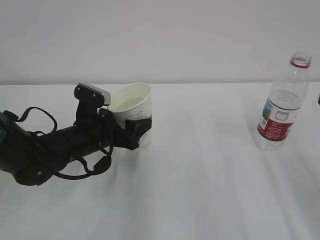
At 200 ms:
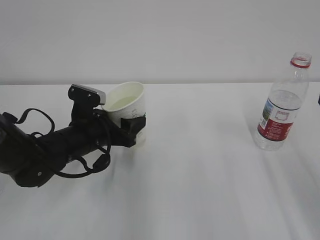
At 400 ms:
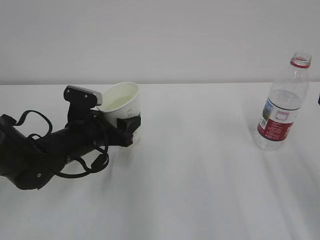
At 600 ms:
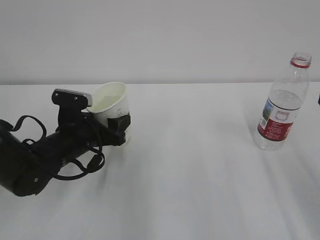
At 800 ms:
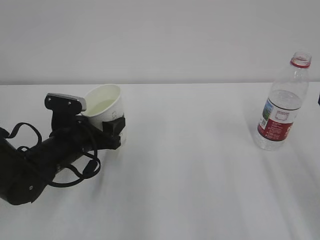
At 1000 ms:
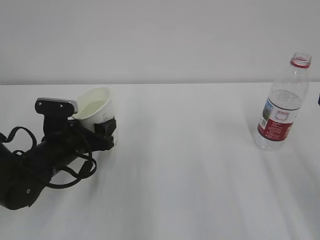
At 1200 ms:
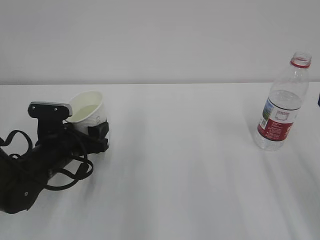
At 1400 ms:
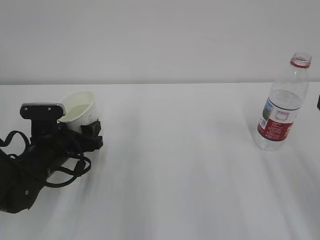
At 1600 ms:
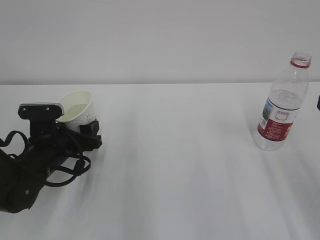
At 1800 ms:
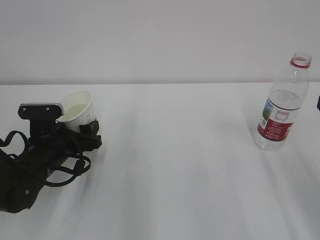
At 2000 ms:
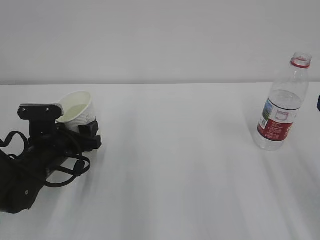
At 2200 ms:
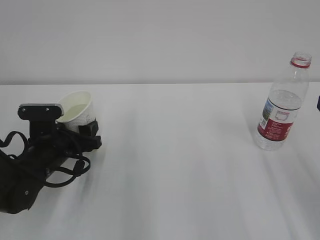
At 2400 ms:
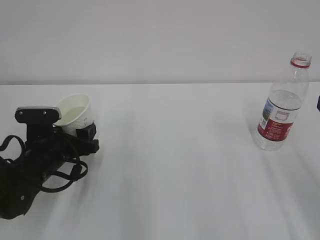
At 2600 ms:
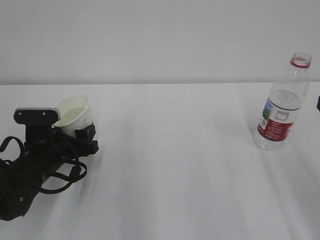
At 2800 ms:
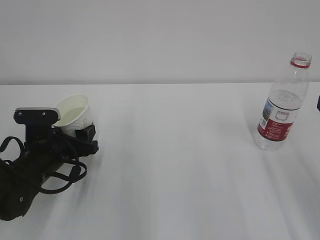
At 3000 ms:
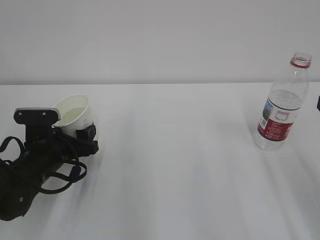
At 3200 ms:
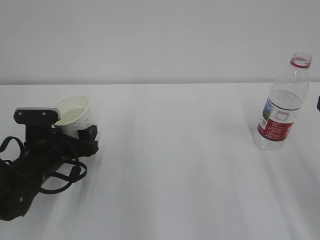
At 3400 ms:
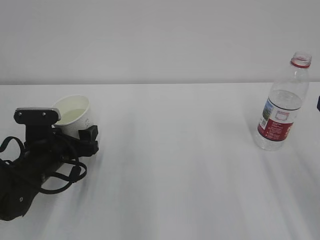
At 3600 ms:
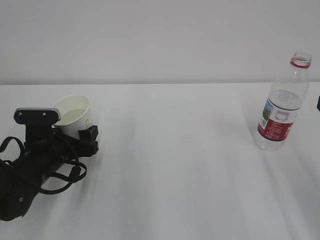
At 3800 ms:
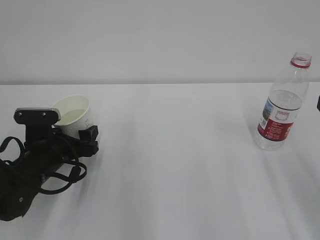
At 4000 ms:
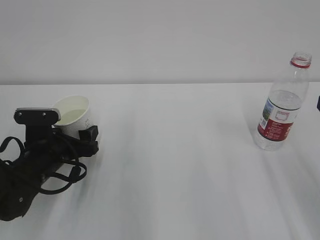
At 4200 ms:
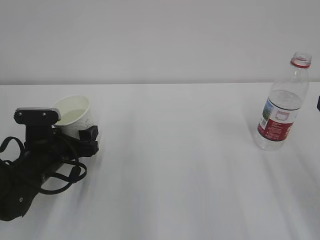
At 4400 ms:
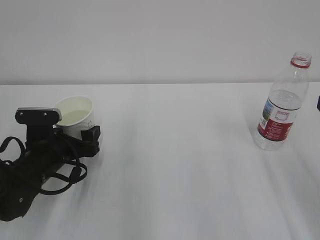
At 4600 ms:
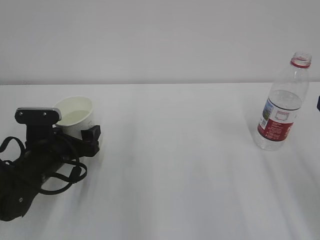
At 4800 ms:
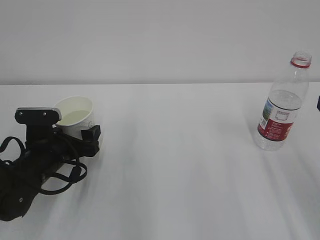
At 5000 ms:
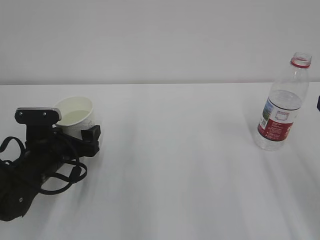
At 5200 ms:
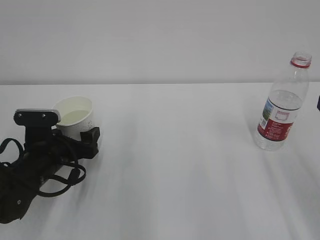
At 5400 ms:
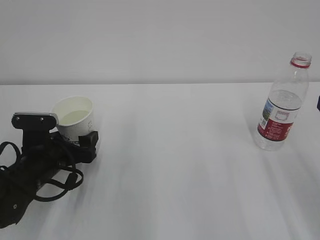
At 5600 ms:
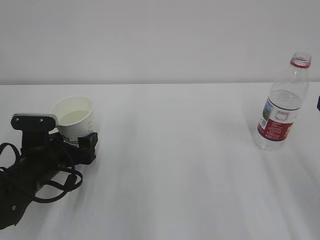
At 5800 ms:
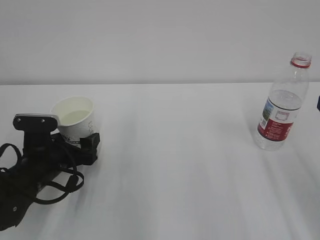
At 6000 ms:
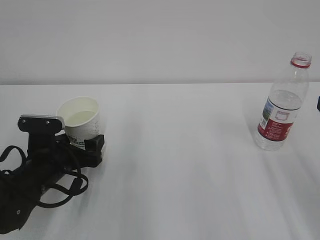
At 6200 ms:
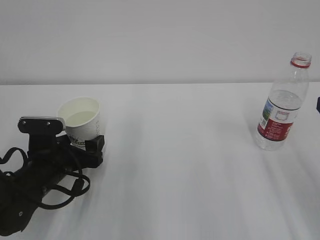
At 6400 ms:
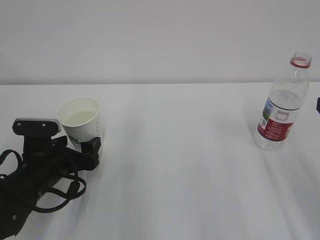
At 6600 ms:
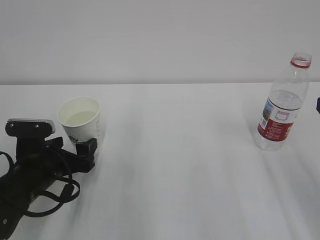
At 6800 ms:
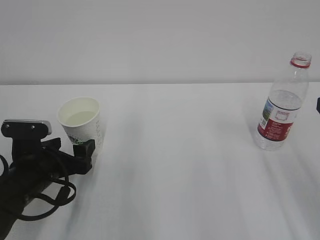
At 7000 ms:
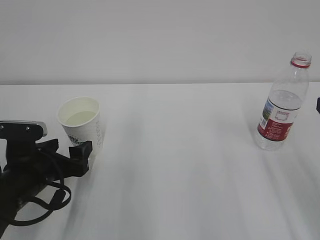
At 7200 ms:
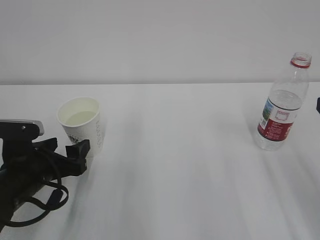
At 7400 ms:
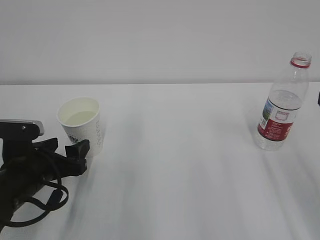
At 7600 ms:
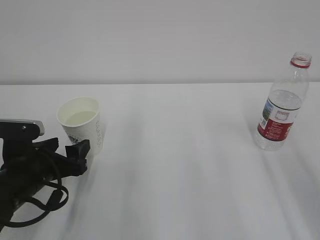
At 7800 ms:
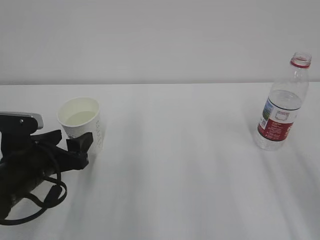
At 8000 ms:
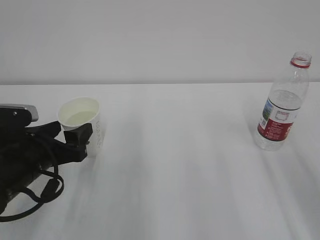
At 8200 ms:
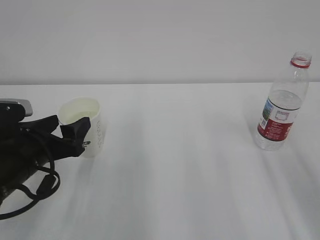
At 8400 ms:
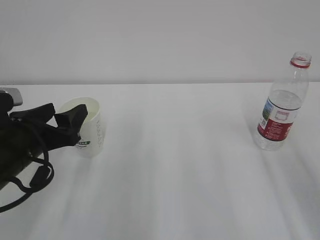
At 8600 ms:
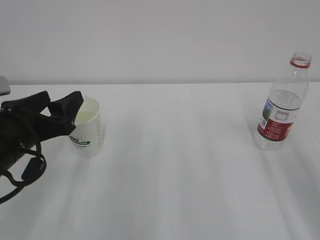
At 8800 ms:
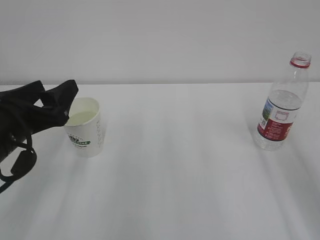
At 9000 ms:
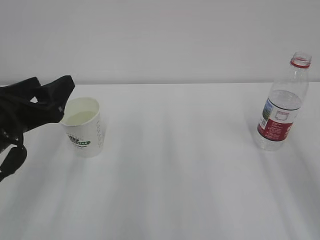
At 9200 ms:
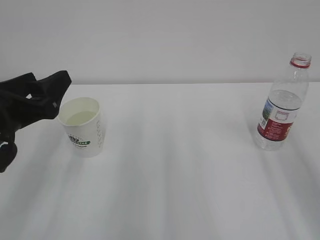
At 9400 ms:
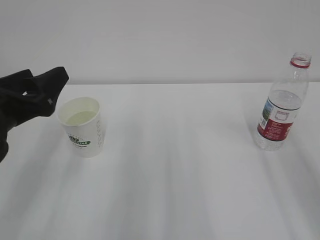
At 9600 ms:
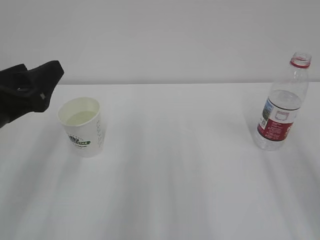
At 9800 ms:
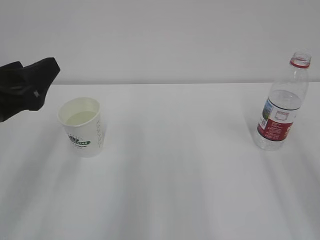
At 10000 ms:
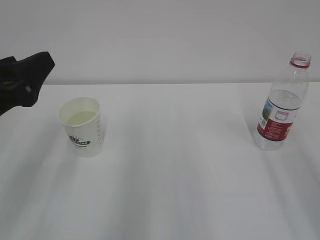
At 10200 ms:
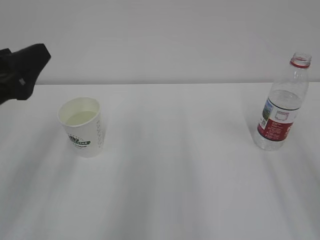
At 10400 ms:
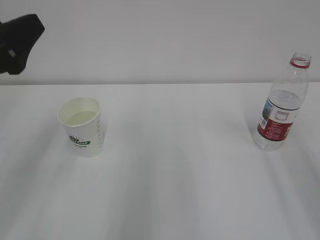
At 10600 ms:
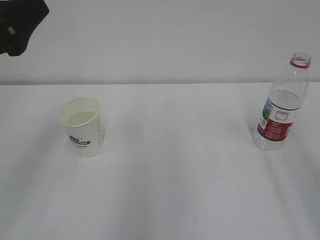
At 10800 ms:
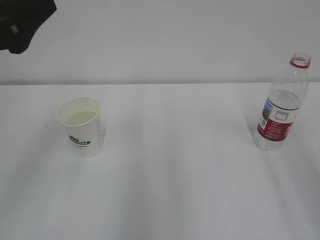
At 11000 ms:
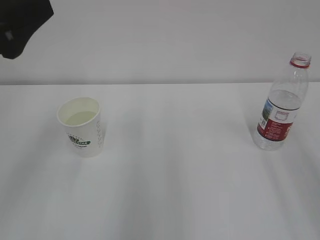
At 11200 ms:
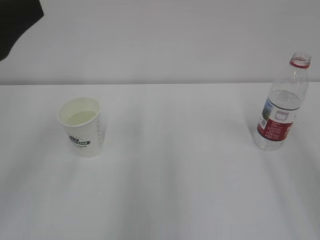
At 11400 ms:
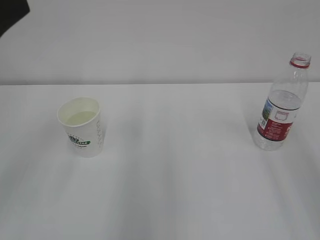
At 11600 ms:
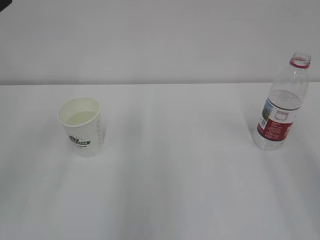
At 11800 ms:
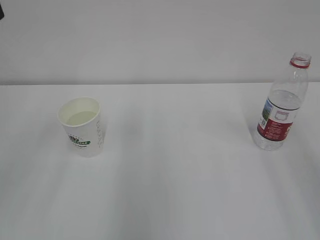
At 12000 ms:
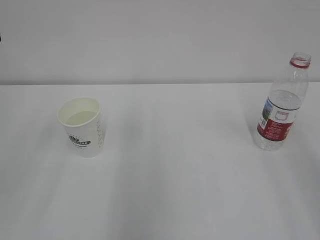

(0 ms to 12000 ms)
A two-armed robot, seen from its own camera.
0 ms - 1600 ms: The left gripper shifts about 5 cm to the left.
1600 ms - 3000 ms: Neither gripper changes place.
3000 ms - 4400 ms: The left gripper opens.
4400 ms - 7600 ms: The grippers stay close to where they were, moving slightly.
7600 ms - 9000 ms: The left gripper shifts approximately 10 cm upward.
9000 ms - 10400 ms: The left gripper is displaced upward by some 10 cm.
10400 ms - 12000 ms: The left gripper travels backward and upward by approximately 10 cm.

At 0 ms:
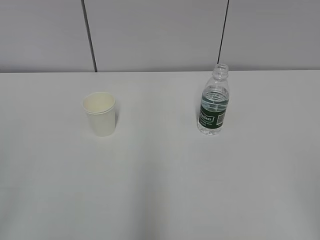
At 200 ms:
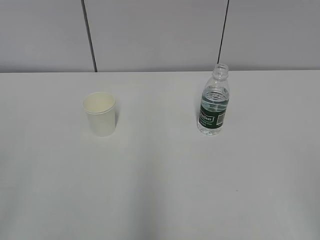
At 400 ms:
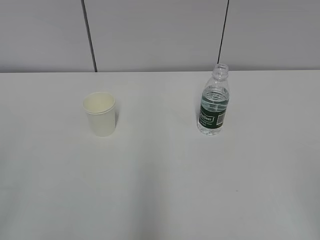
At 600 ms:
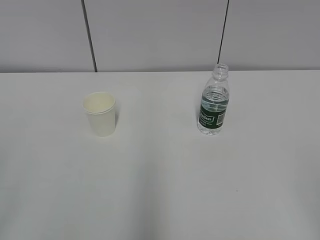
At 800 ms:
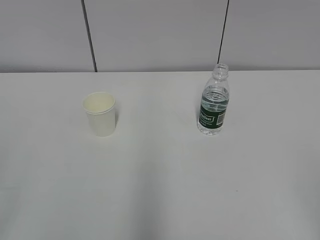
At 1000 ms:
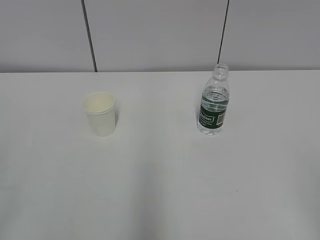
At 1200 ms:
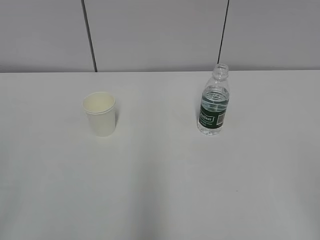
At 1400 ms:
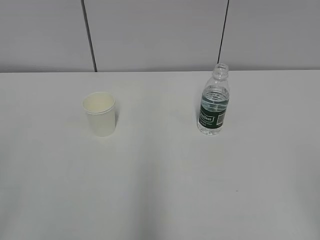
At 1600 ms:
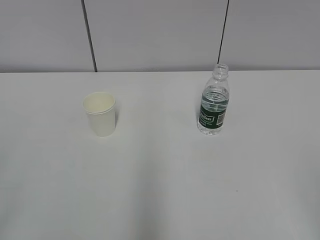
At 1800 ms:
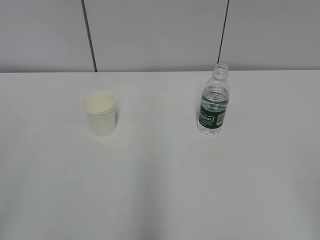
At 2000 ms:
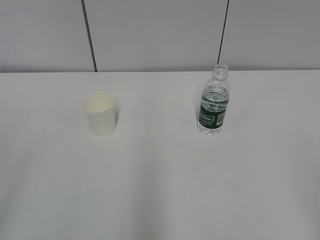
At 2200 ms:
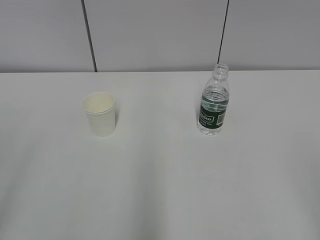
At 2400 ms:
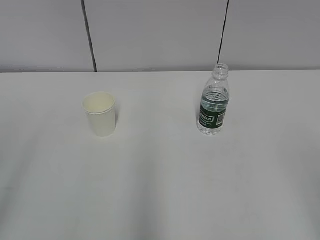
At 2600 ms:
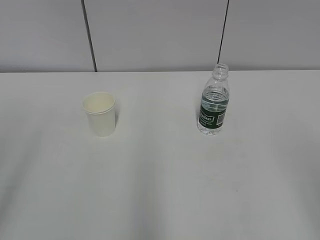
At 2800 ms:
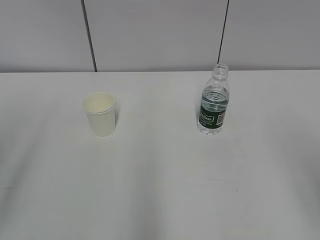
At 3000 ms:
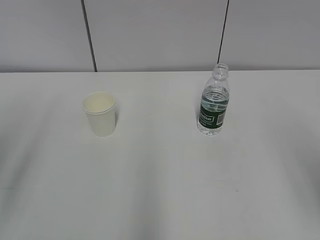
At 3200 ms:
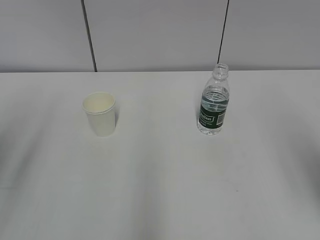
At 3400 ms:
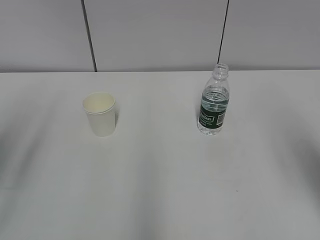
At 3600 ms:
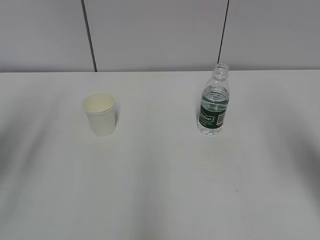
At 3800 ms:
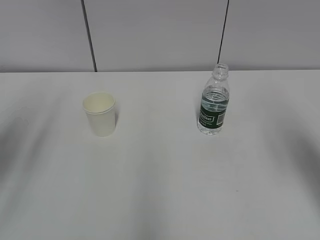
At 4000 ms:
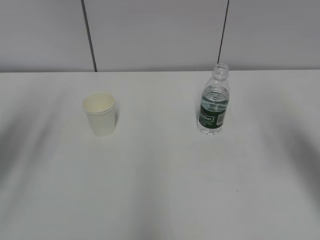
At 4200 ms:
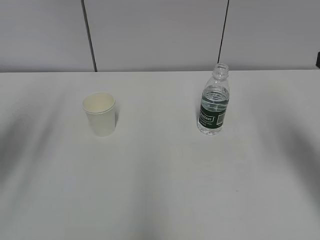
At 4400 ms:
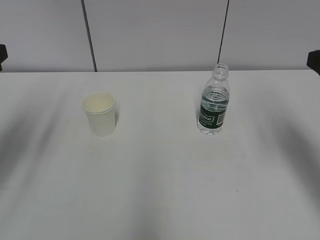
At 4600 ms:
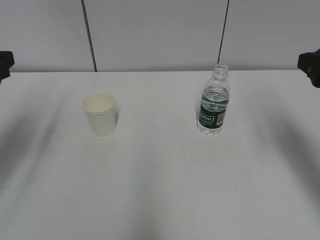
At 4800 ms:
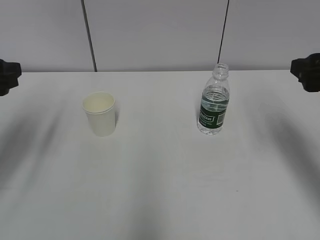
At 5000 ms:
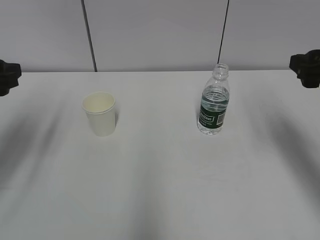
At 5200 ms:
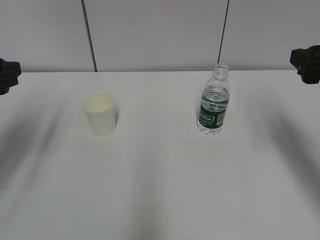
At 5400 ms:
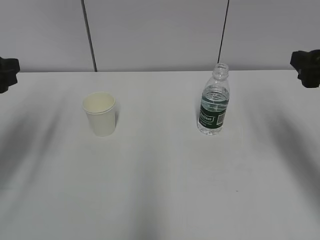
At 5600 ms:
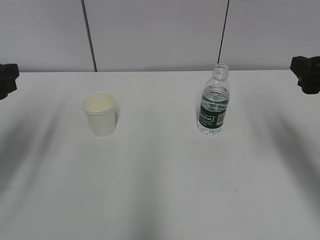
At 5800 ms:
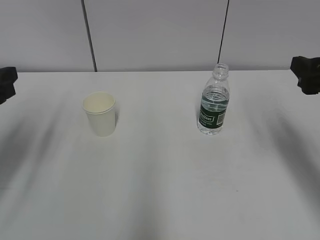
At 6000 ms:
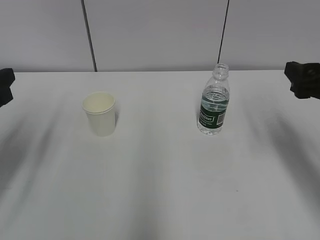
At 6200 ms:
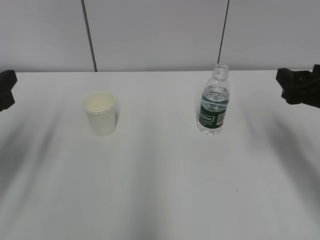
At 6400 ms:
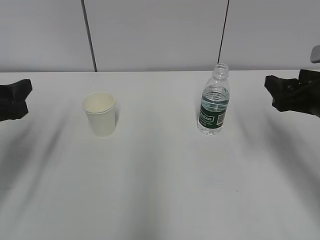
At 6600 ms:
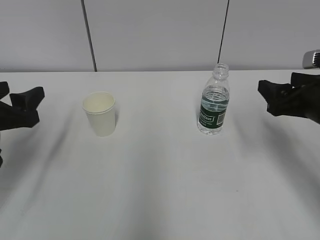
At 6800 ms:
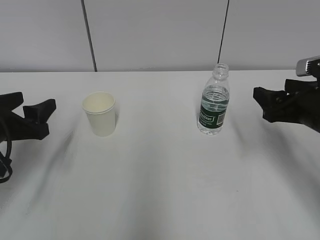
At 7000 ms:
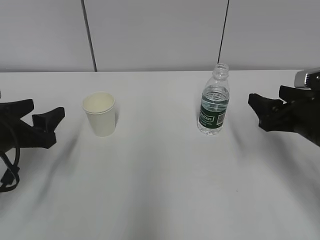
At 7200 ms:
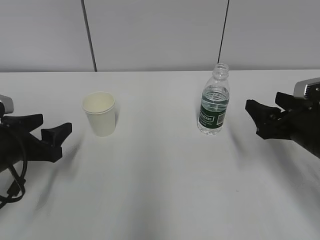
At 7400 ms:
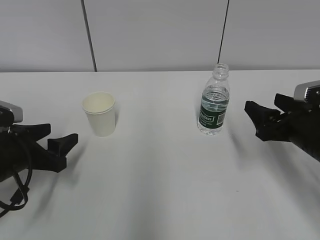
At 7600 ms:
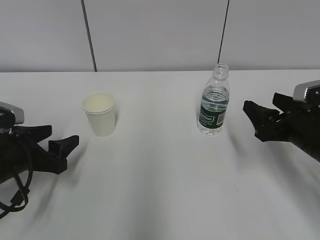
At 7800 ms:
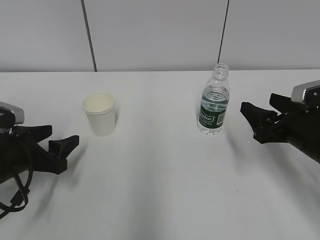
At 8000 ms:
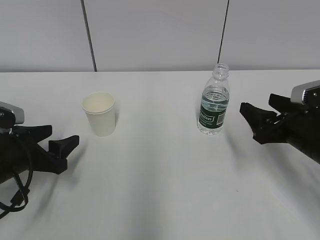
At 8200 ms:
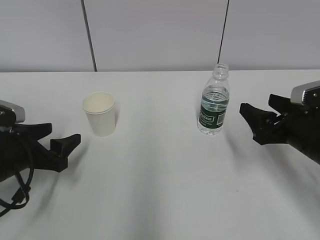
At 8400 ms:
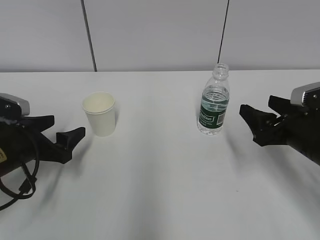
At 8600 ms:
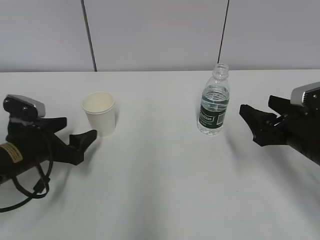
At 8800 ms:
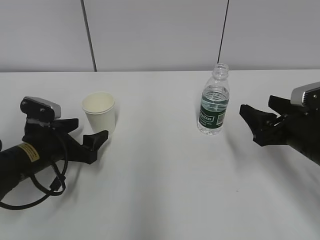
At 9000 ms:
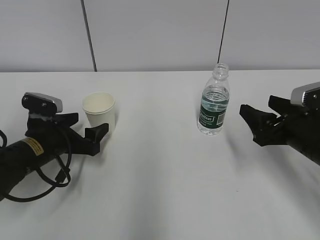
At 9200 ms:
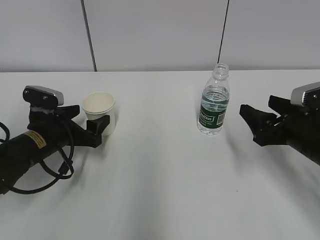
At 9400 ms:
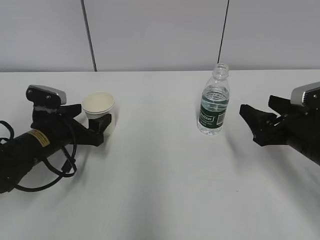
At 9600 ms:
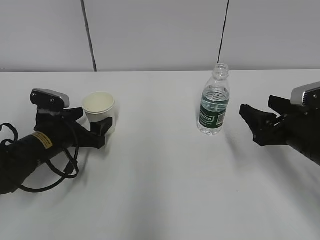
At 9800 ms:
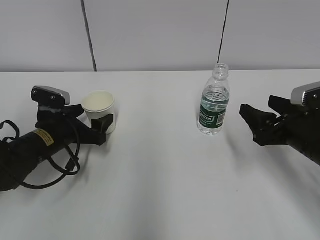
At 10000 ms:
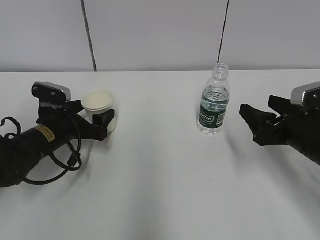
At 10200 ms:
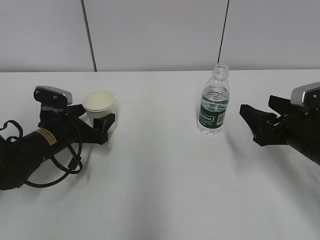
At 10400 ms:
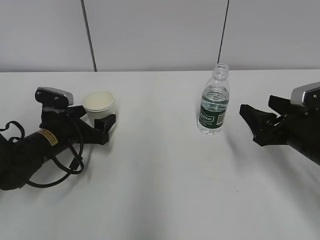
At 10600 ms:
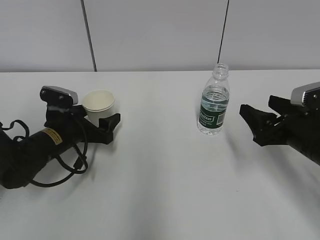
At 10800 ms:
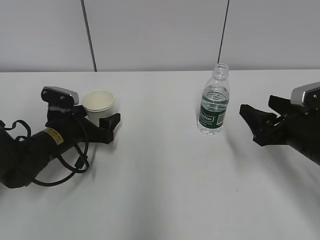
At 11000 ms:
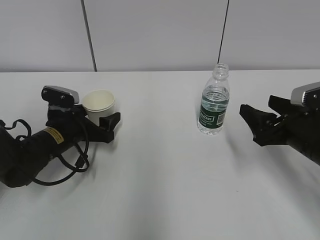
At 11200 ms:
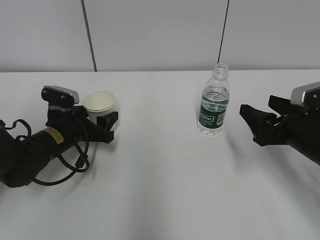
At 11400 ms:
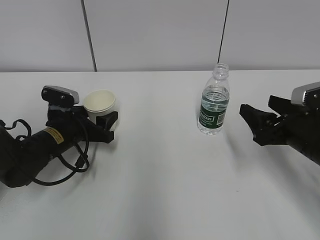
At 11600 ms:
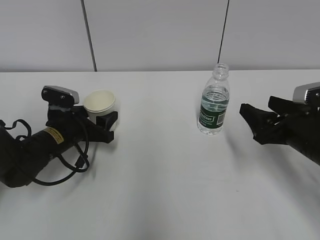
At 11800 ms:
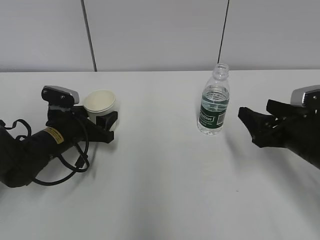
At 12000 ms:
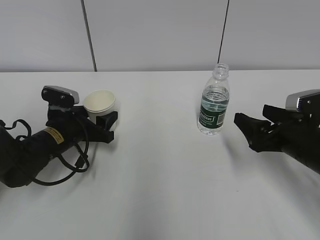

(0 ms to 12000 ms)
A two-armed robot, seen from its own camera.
3000 ms - 4400 ms: The right gripper moves forward, about 15 cm, while the left gripper moves forward and downward, some 15 cm.
4400 ms - 6000 ms: The two grippers go some 5 cm downward.
6000 ms - 7600 ms: Both grippers travel together downward, approximately 10 cm.
7600 ms - 9000 ms: The left gripper travels forward by some 5 cm, and opens its fingers.
9000 ms - 10400 ms: There are only small adjustments of the grippers.
10400 ms - 12000 ms: The left gripper closes its fingers.
